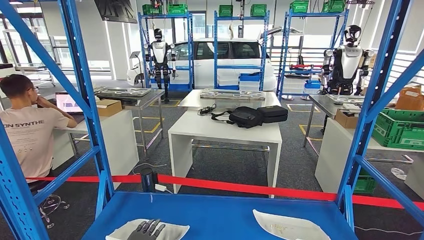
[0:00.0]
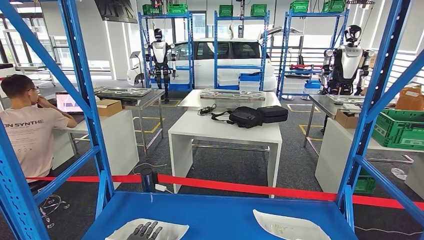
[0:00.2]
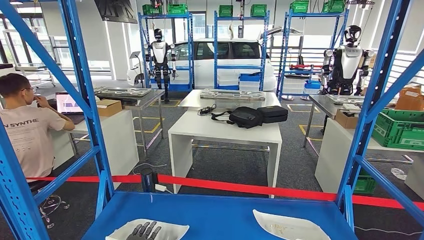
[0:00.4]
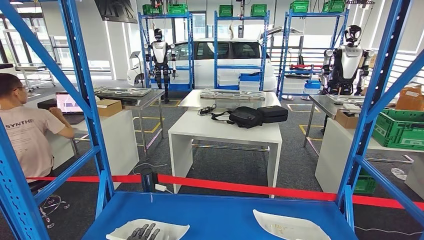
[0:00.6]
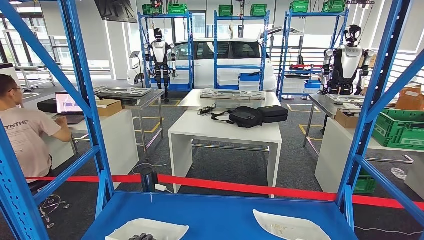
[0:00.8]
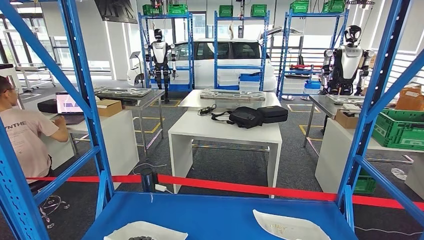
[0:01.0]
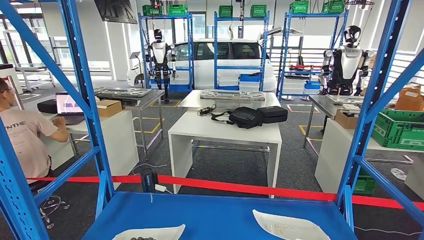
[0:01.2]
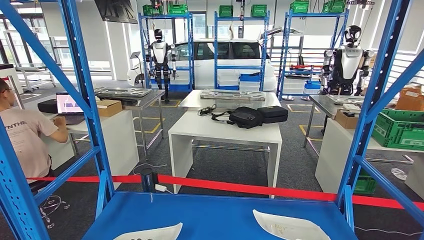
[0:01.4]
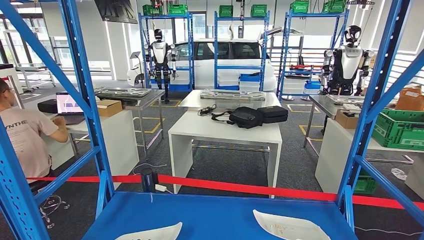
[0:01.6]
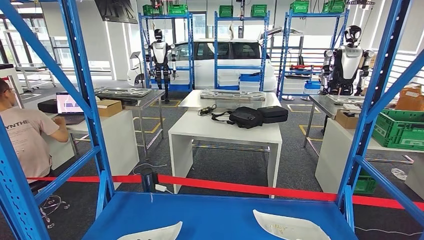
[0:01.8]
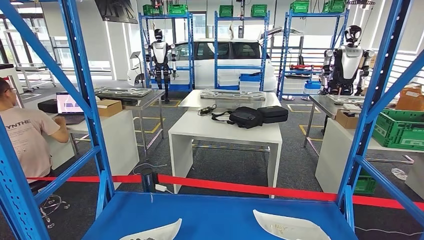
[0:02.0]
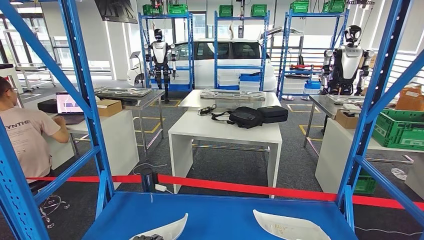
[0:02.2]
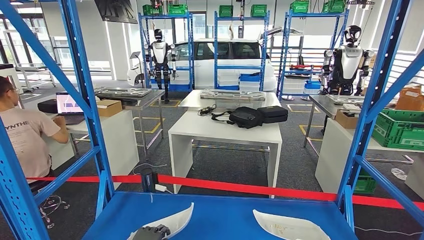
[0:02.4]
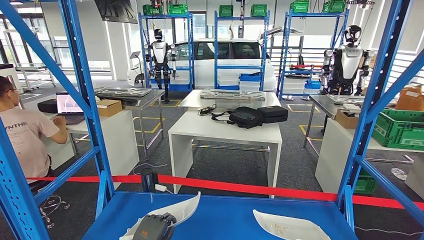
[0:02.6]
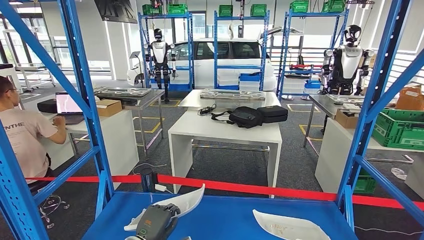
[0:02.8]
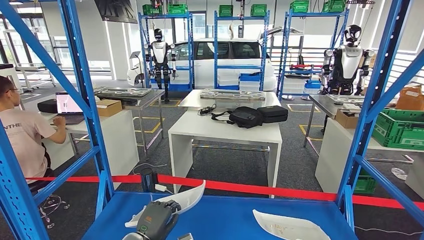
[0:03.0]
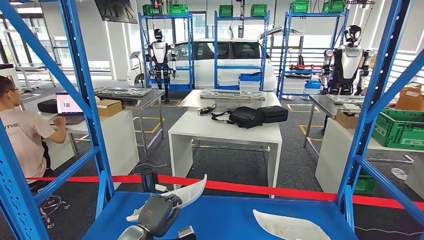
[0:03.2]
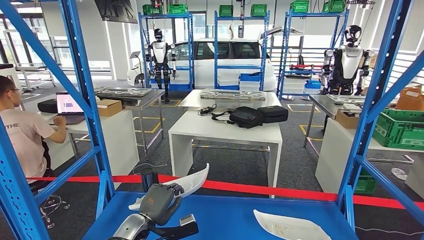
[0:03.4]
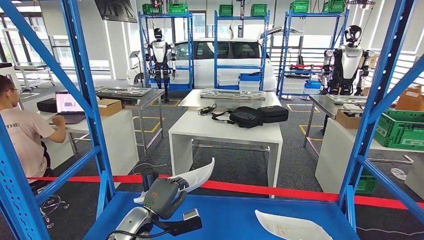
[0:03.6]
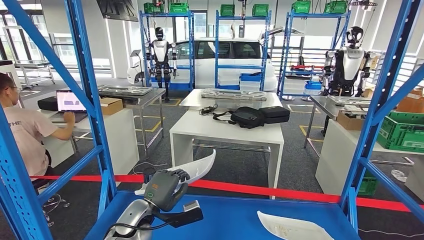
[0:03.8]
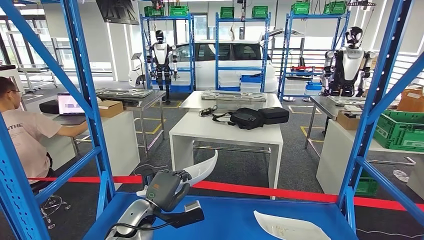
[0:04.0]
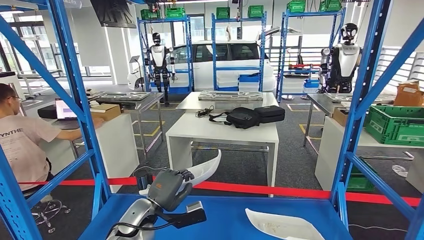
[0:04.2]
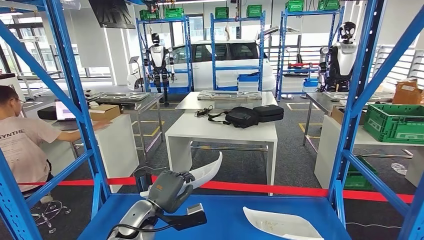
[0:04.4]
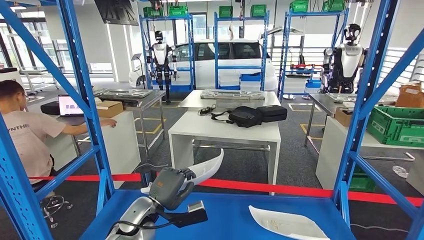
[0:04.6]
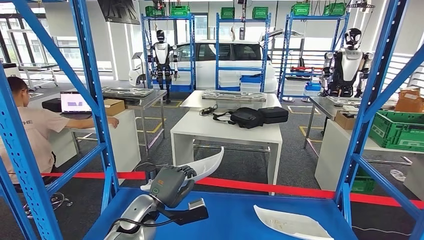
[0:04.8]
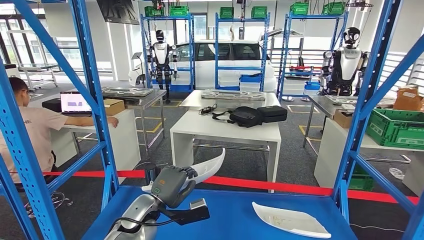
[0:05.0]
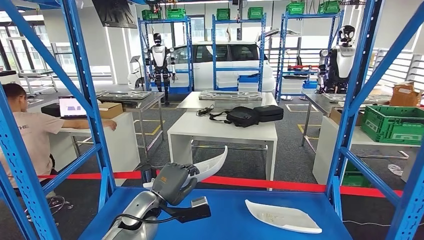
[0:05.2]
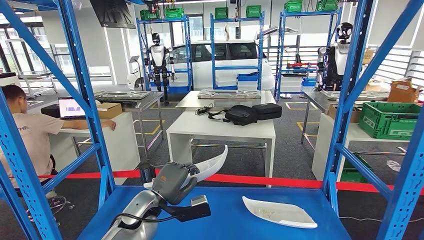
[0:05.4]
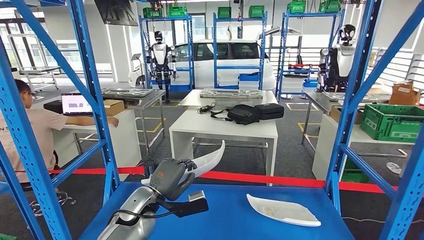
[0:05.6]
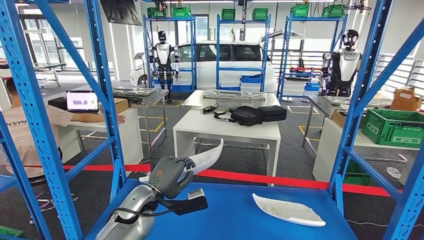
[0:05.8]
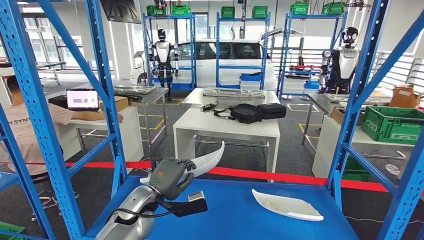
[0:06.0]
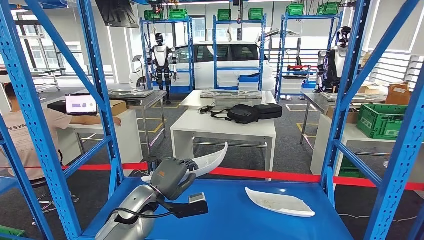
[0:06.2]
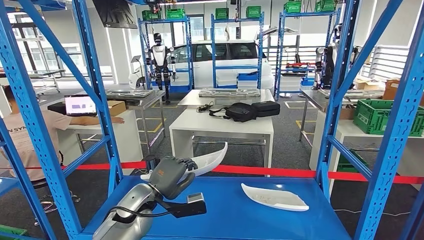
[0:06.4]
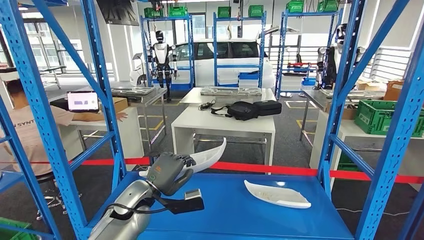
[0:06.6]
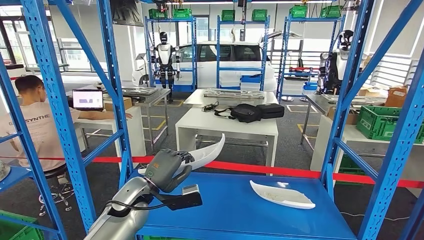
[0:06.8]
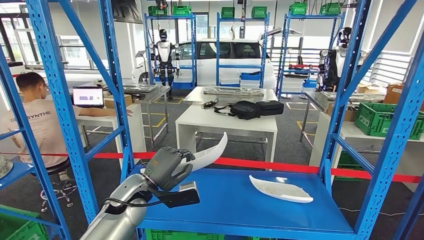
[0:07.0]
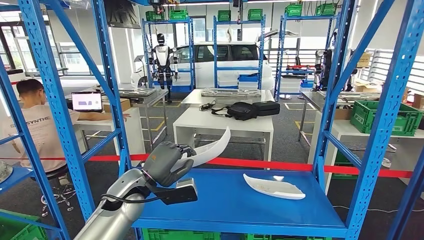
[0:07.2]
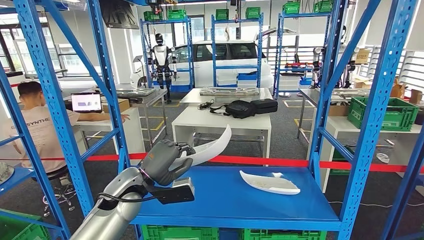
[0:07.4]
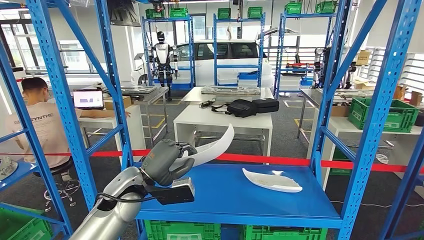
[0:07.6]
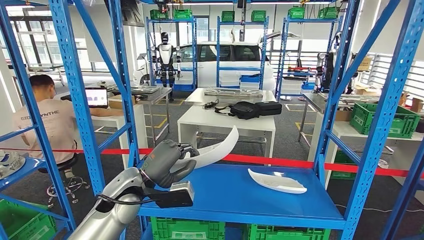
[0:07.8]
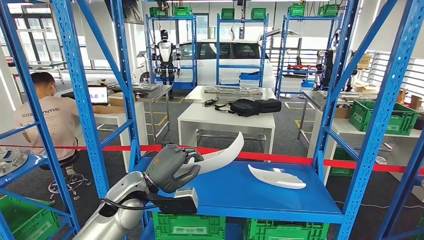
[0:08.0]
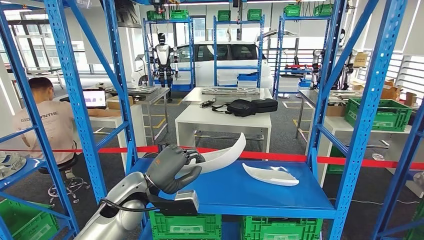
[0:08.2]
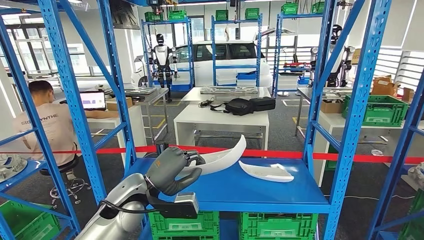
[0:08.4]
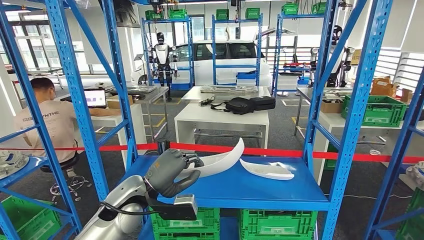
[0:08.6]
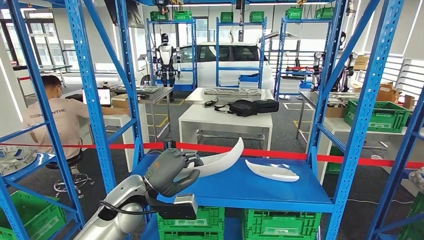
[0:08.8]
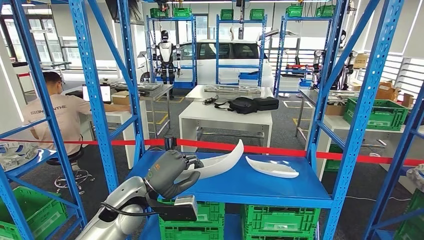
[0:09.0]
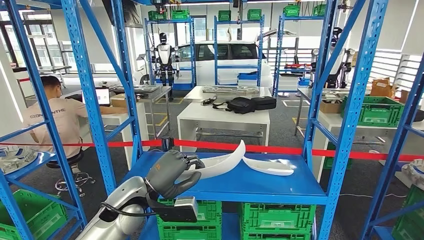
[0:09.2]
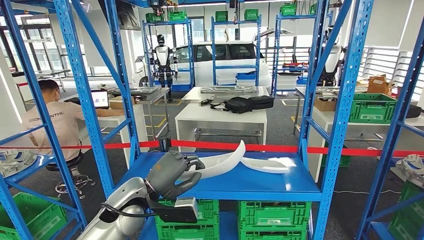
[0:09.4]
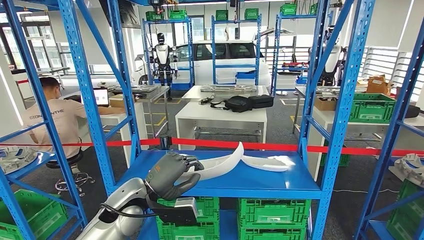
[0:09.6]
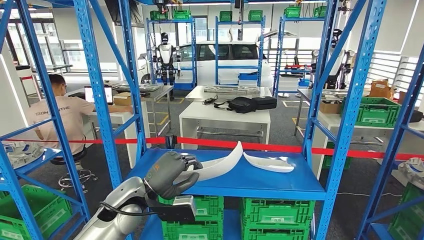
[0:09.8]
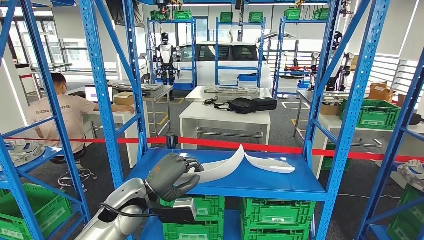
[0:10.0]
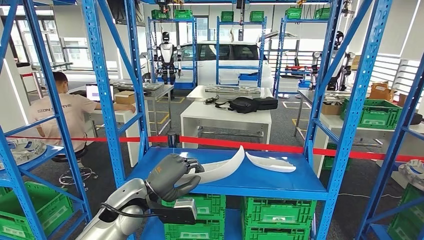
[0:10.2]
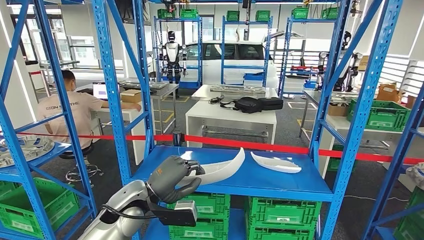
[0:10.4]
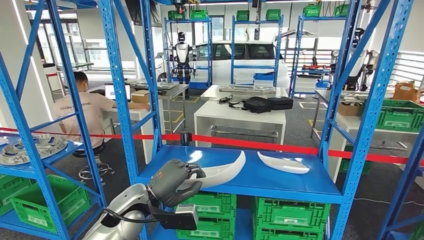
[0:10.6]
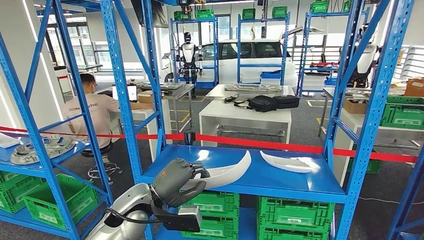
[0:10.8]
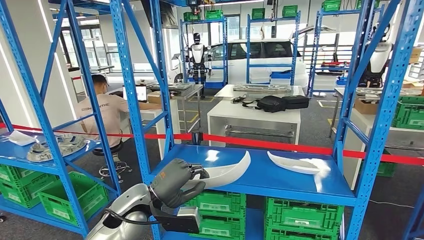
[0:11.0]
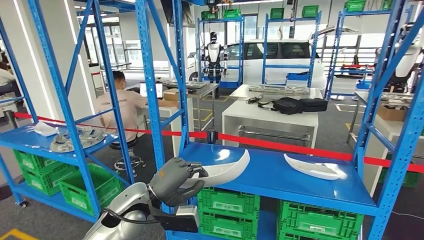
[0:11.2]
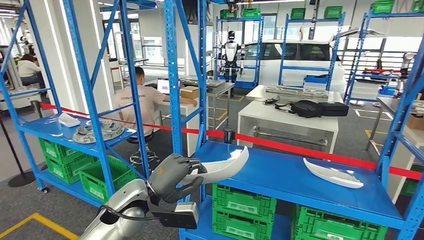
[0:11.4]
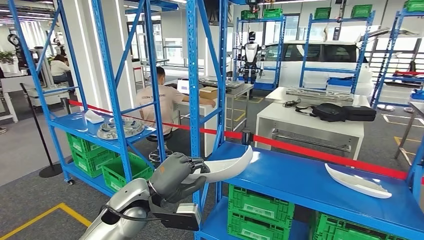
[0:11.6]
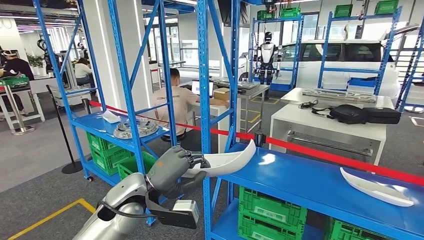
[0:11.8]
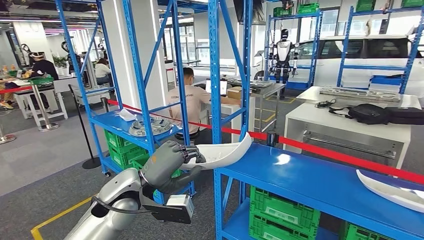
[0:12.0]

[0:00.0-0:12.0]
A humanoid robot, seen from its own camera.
Step, 0:00.0 to 0:10.4: Pick up the small component from the shelf.
0:00.0 to 0:01.6: The hands stay close to where they were, moving slightly.
0:01.6 to 0:03.0: The left hand heads upward, to the right and forward, covering approximately 10 cm.

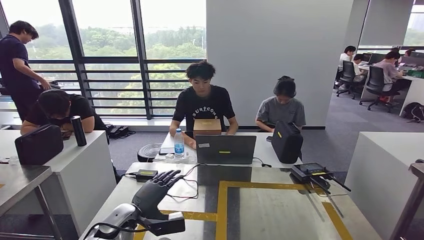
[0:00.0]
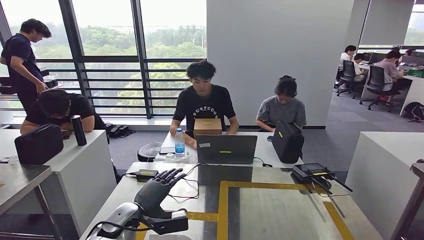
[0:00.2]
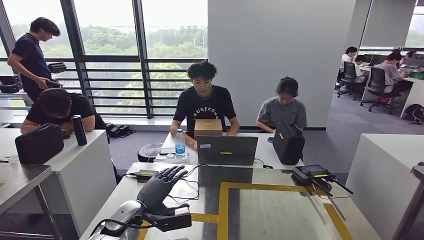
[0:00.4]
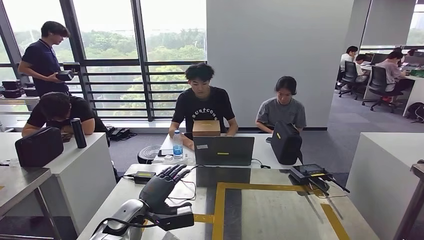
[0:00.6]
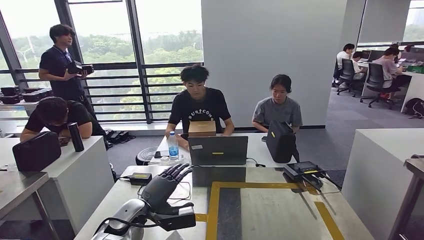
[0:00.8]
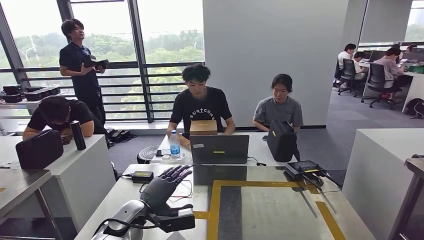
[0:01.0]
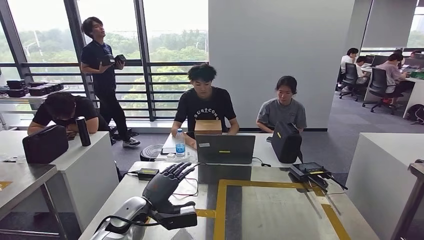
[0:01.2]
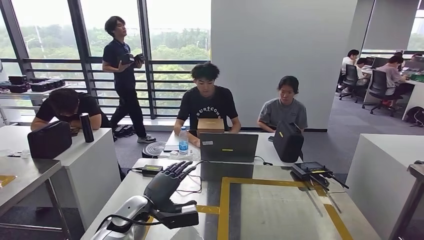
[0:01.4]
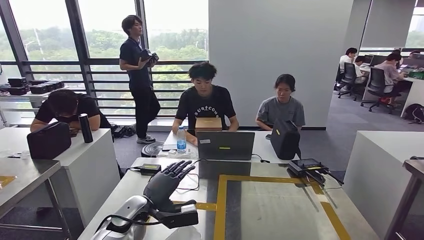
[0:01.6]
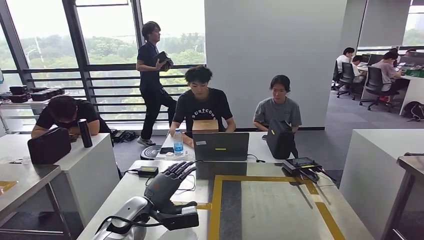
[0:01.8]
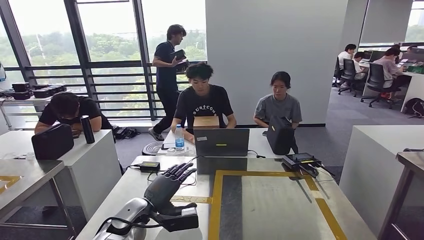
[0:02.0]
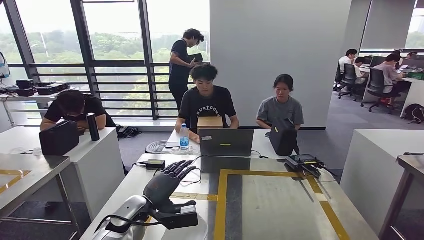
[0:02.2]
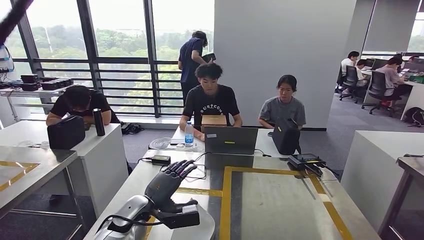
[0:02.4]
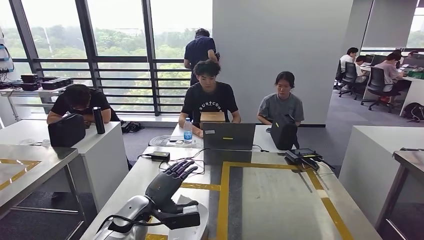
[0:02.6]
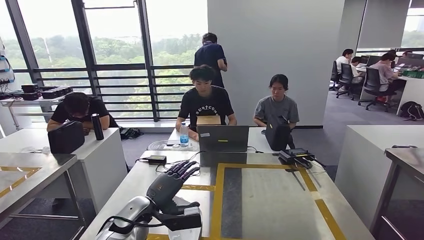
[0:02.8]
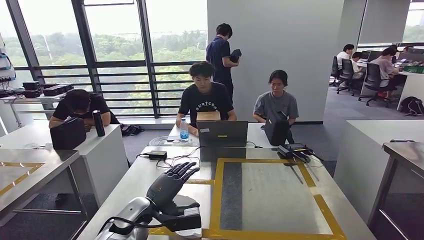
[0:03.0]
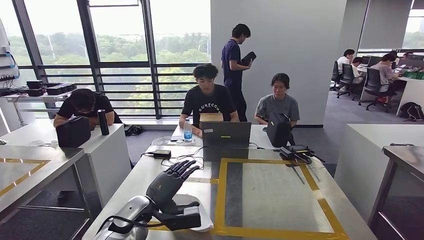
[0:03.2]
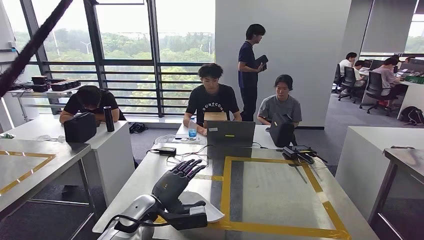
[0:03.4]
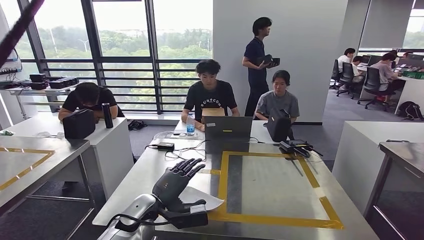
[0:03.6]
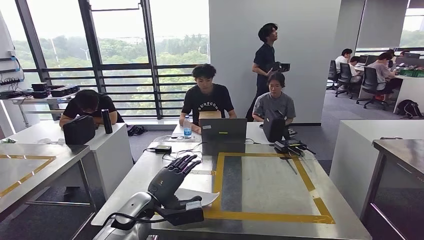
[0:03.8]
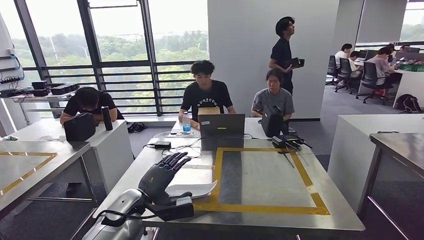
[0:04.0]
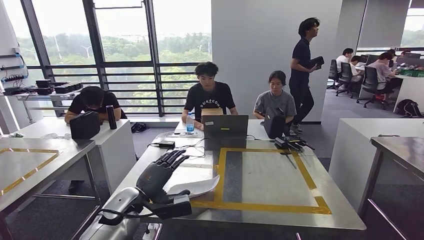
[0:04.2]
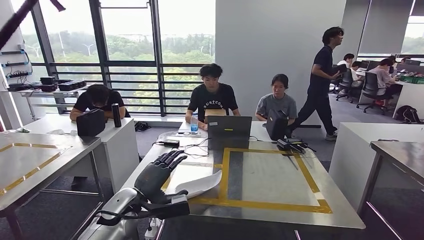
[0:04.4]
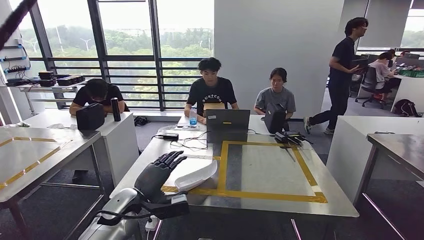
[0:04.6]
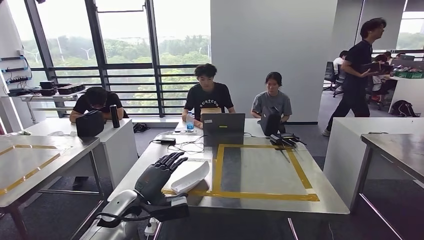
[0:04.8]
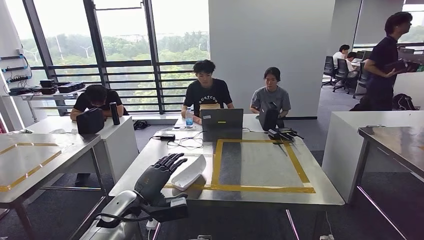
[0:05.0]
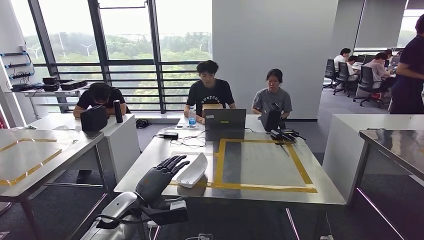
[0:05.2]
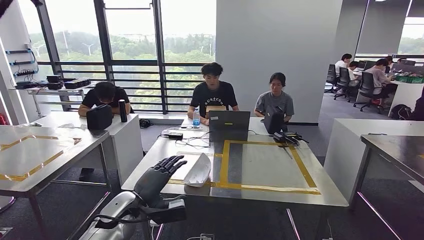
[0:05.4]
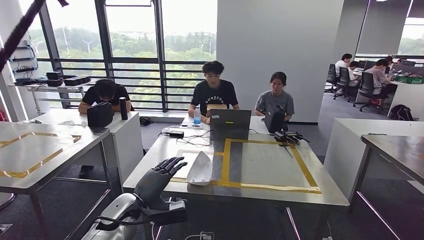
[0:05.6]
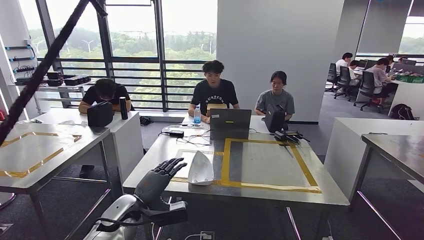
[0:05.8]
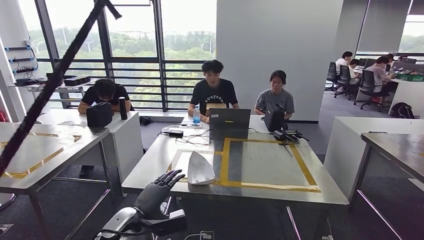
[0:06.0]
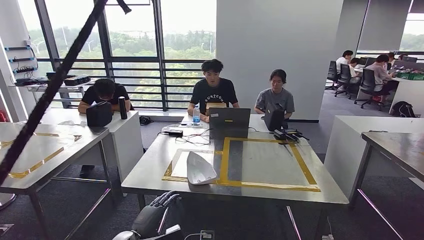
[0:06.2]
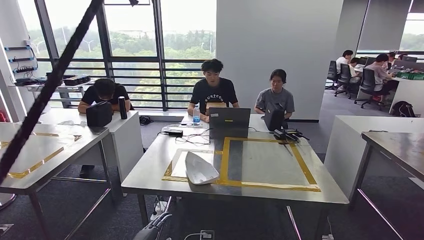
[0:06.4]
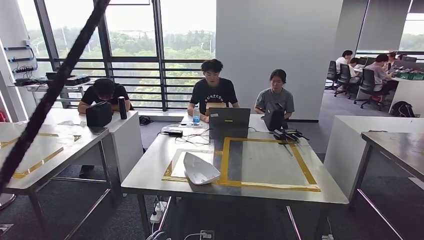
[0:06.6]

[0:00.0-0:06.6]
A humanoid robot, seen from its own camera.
Step, 0:01.6 to 0:05.6: Move to the initial position of the workbench.
